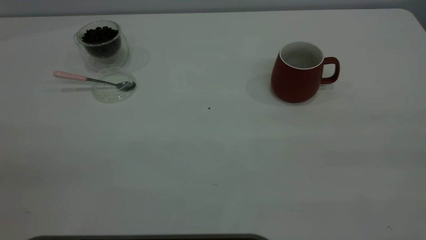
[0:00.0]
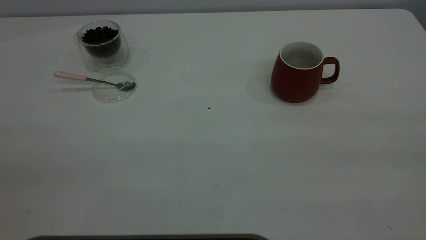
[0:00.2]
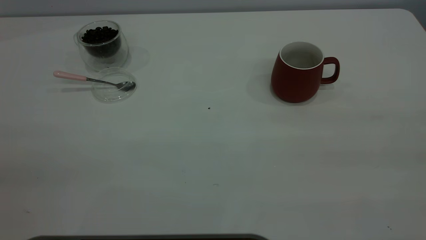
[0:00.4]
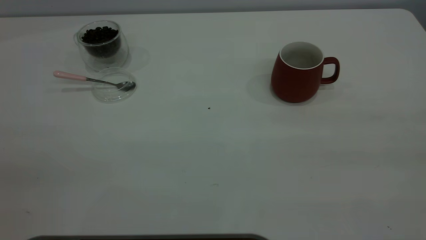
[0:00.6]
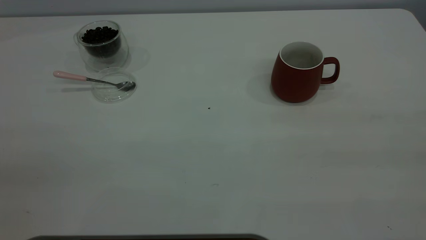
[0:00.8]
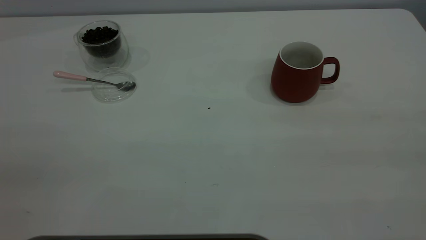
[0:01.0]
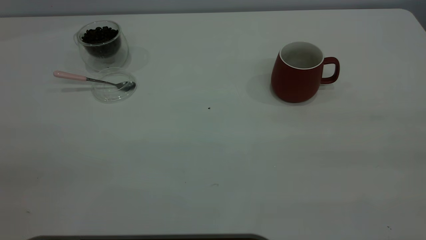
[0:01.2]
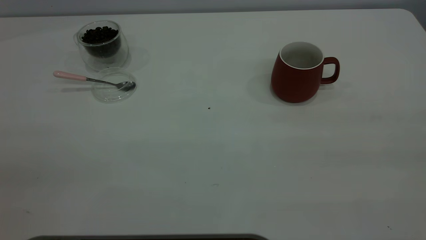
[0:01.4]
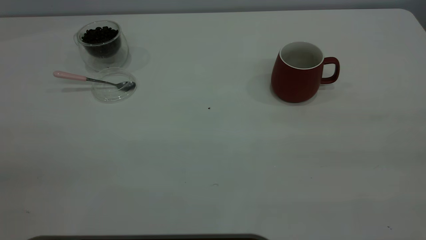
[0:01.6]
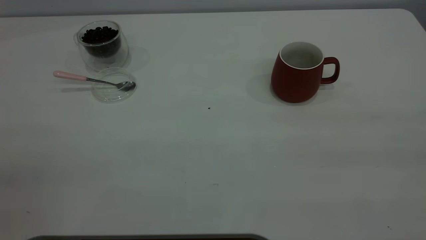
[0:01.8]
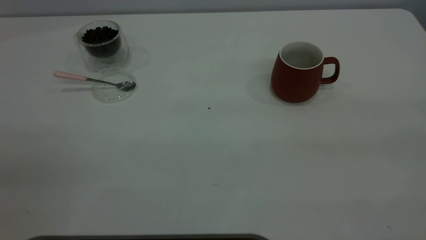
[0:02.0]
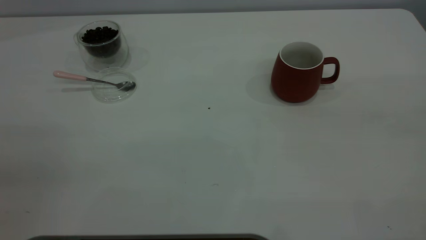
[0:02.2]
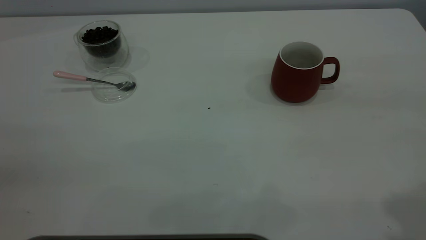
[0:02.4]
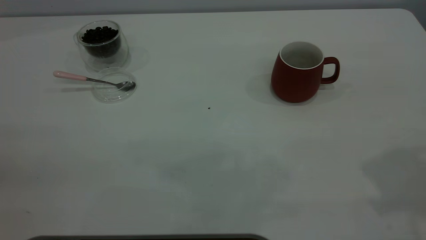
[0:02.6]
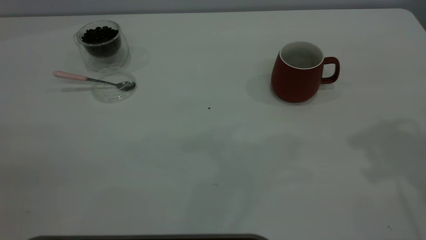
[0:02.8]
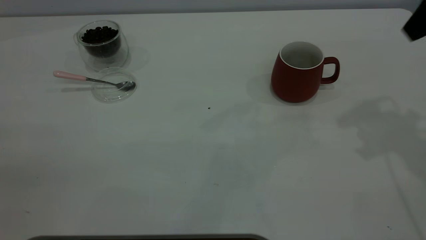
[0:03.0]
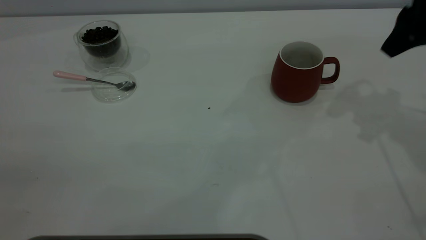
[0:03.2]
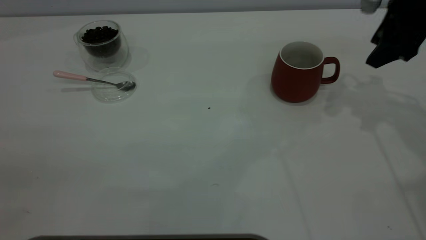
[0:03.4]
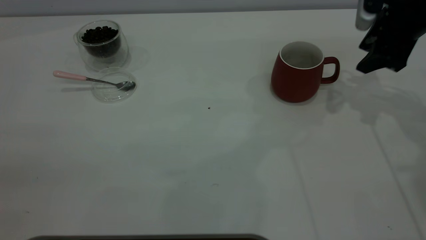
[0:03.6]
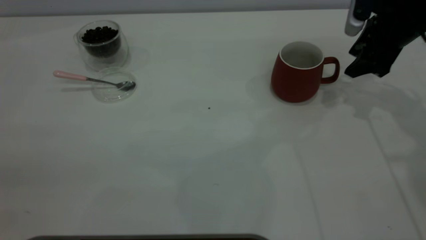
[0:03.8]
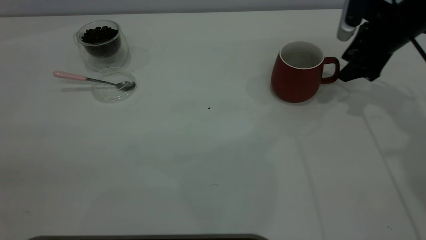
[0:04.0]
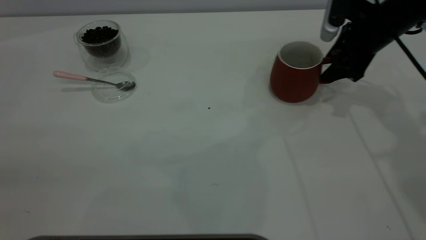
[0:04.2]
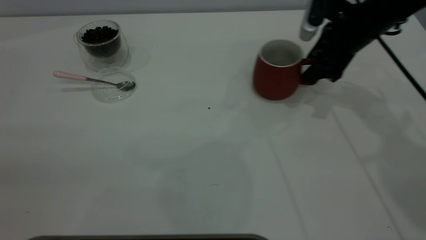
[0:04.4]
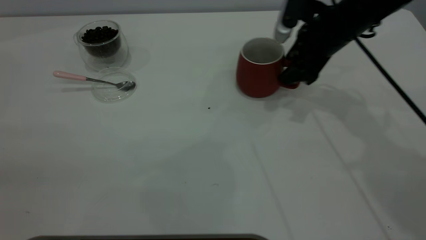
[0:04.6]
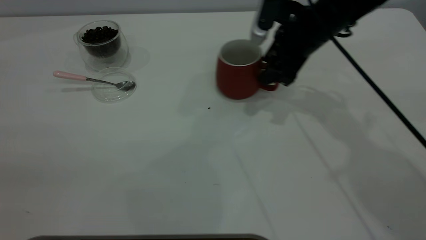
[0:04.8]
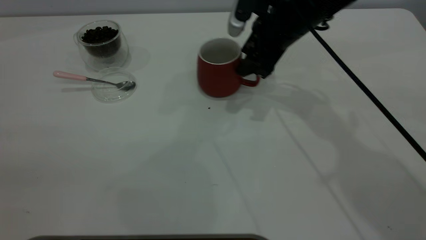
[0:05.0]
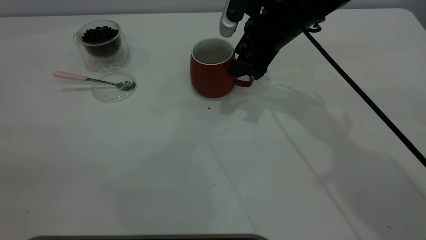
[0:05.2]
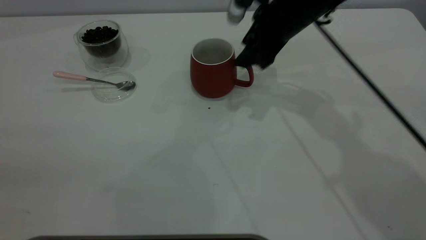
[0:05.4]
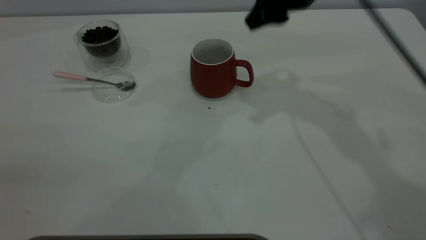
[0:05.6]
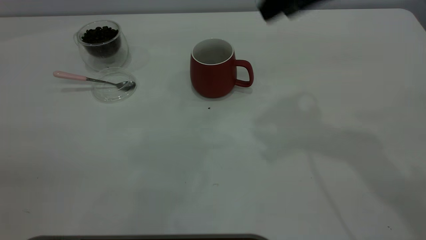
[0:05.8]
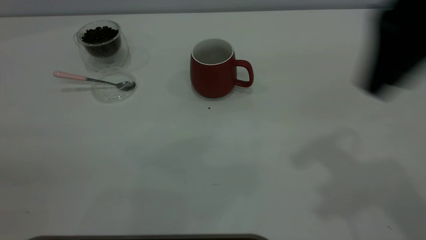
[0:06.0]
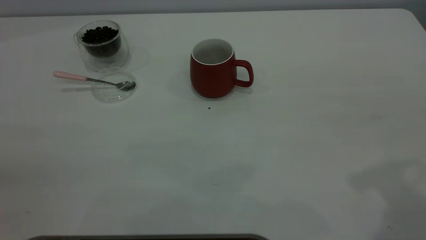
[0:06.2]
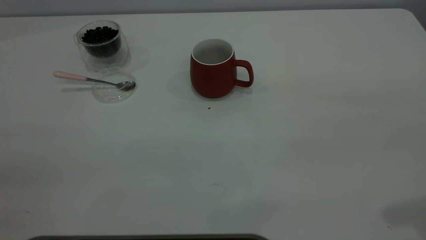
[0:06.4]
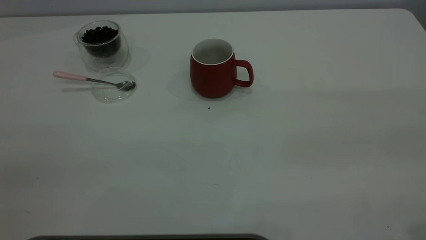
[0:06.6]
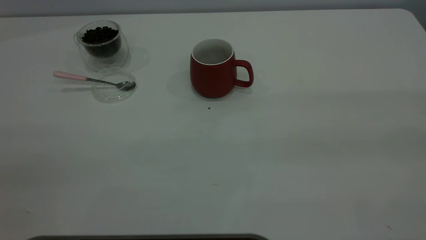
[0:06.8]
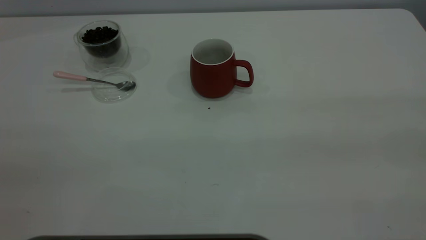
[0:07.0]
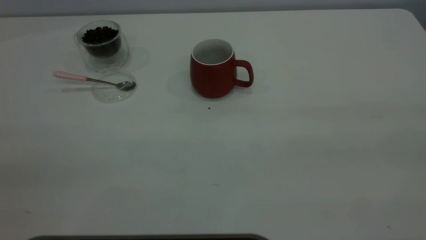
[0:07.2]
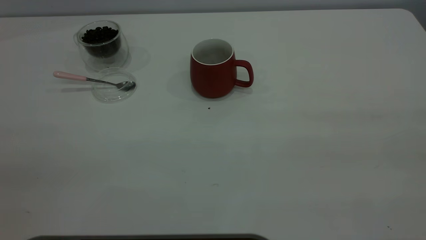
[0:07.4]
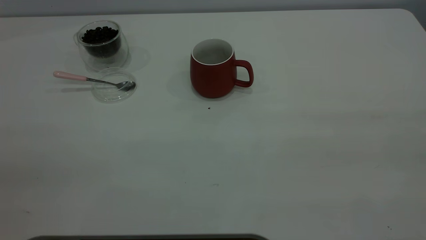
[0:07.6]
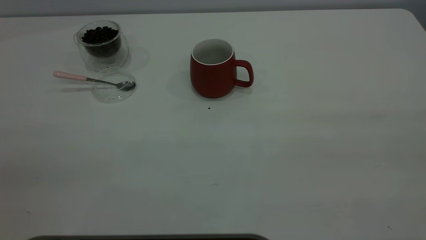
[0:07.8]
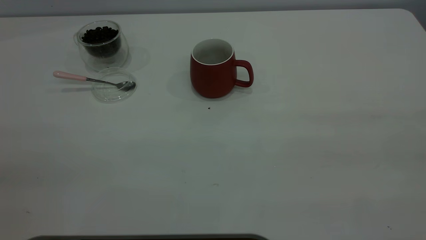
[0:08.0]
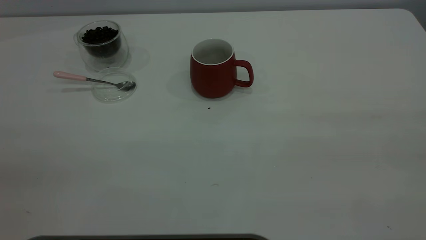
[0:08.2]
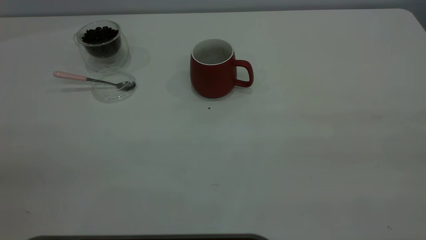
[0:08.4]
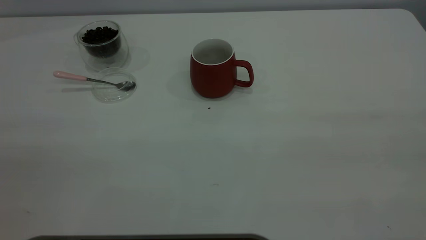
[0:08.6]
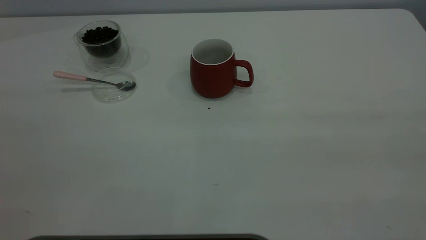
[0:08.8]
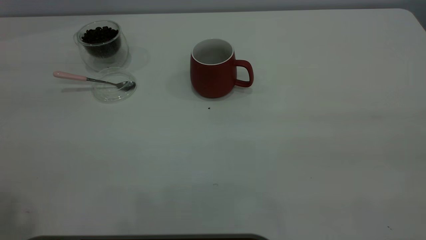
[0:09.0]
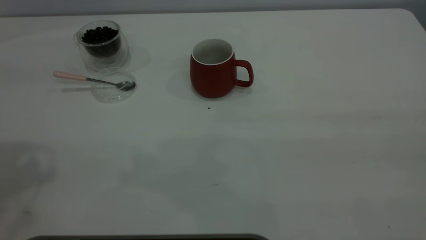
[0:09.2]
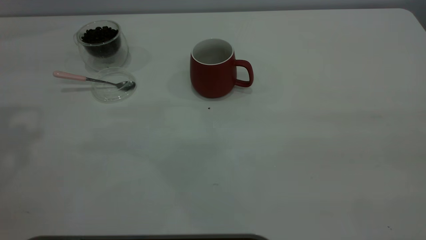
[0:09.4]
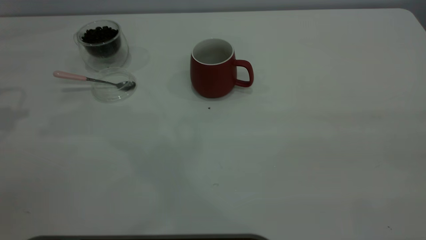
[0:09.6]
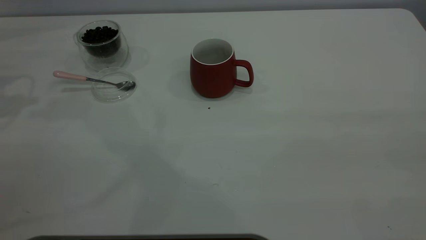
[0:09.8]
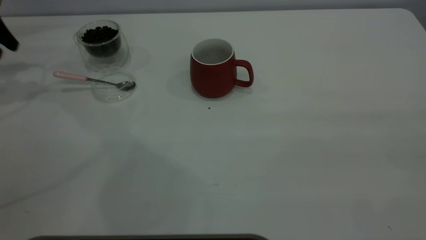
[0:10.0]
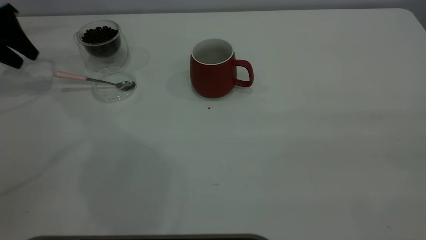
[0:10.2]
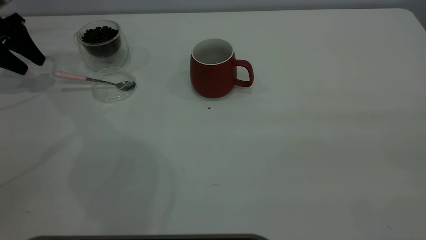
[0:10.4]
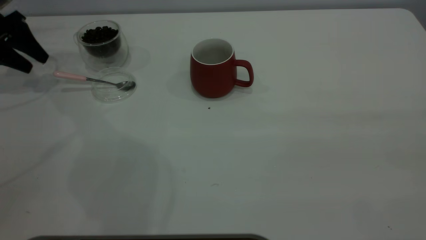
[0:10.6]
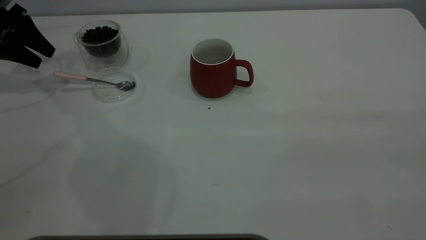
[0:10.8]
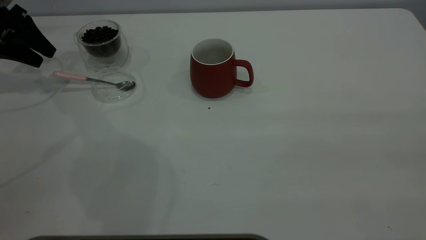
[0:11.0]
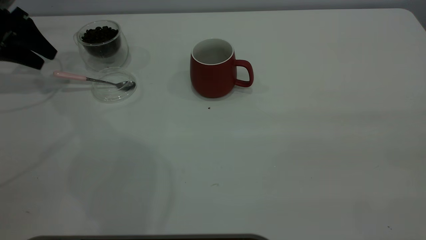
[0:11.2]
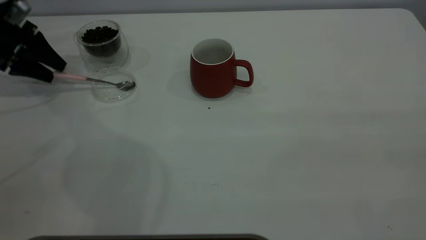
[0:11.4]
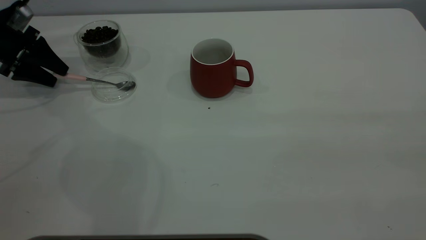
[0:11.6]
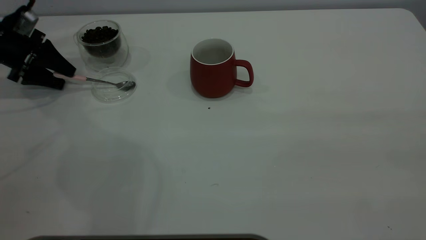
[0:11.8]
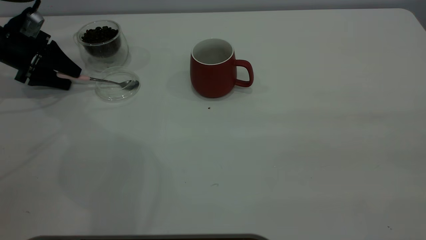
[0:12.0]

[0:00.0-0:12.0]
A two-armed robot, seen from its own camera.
Task of the whole recording: the right gripper place the red cup in the center of the table, the left gripper take the pink spoon from the cup lid and scoop out the coffee beans from the coffee cup and put them into the red cup, the left gripper put the spoon back into the cup lid.
Step, 0:00.0 to 0:05.4: Move the cup to the center of view.
0:00.0 to 0:01.6: Both grippers stay about where they are.
0:03.0 to 0:04.4: The right gripper heads downward, forward and to the left, covering some 20 cm.
0:04.4 to 0:06.0: The right gripper moves backward and upward, some 25 cm.
0:06.0 to 0:07.6: The right gripper shifts some 25 cm backward and to the right.
0:09.0 to 0:10.4: The left gripper is displaced forward, downward and to the left by some 40 cm.
0:10.4 to 0:12.0: The left gripper moves downward, some 5 cm.

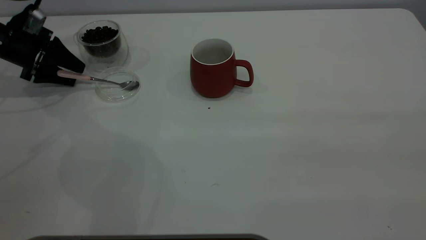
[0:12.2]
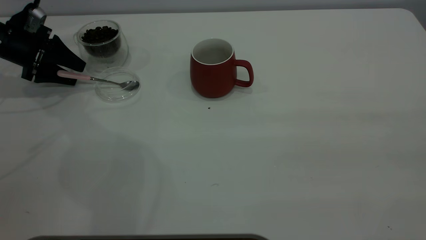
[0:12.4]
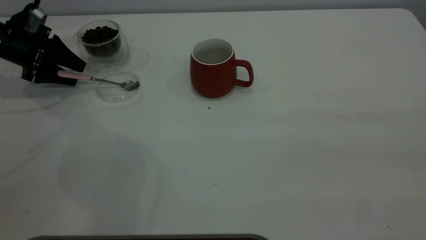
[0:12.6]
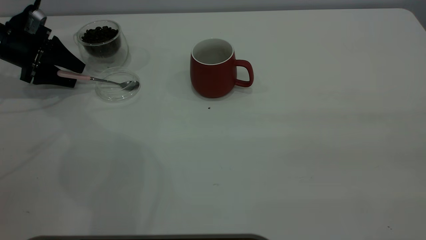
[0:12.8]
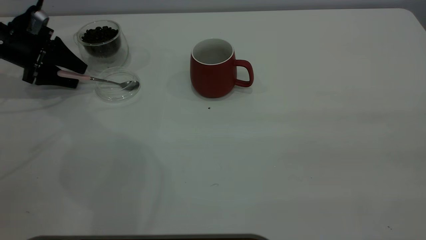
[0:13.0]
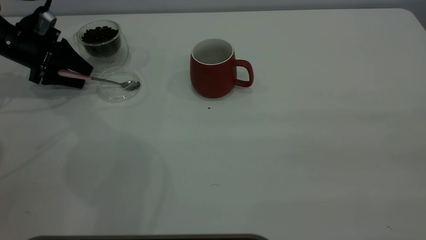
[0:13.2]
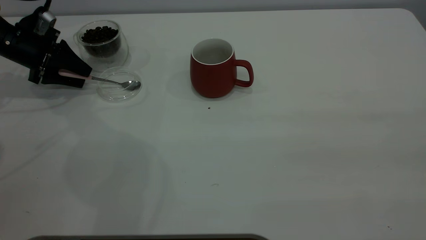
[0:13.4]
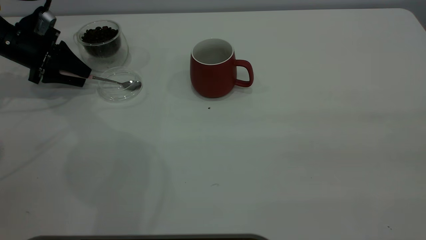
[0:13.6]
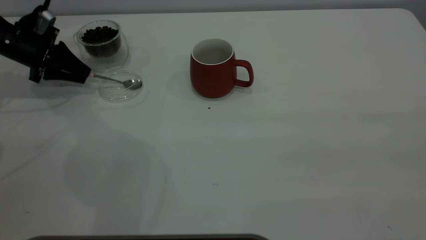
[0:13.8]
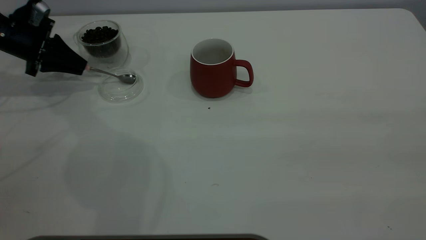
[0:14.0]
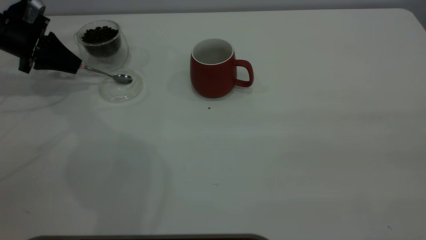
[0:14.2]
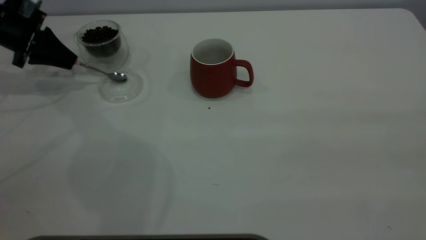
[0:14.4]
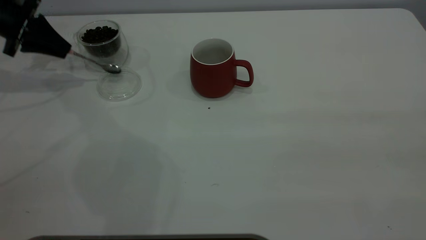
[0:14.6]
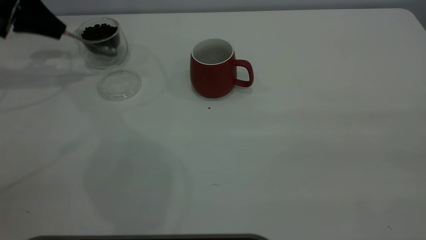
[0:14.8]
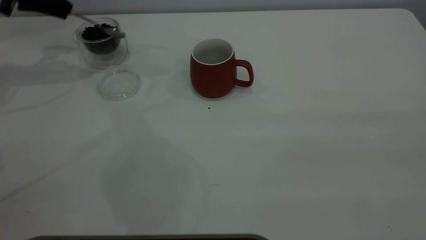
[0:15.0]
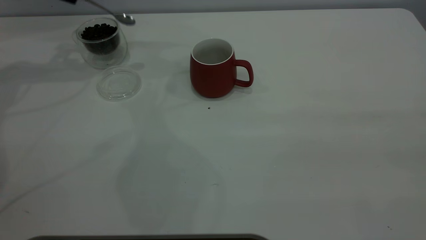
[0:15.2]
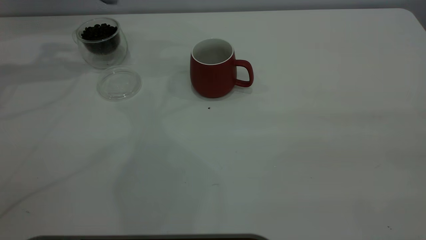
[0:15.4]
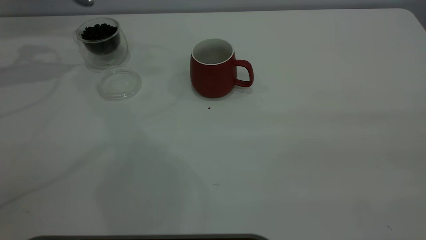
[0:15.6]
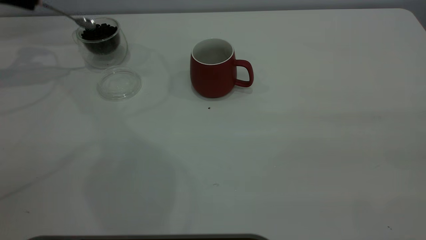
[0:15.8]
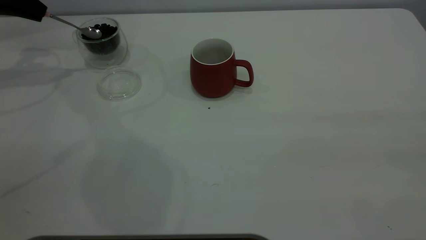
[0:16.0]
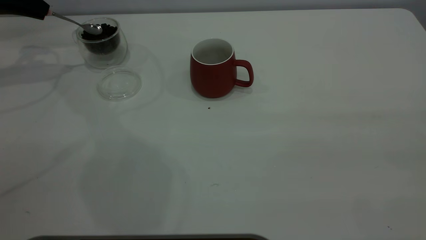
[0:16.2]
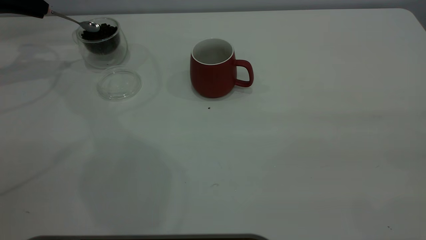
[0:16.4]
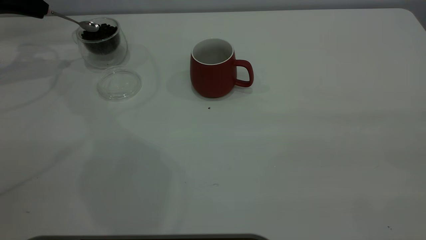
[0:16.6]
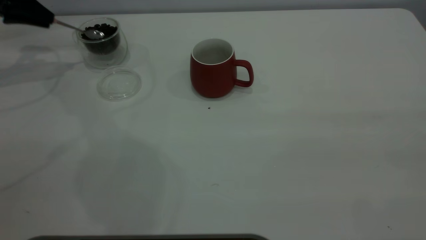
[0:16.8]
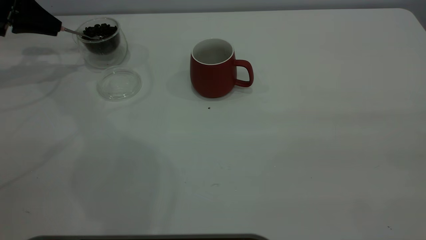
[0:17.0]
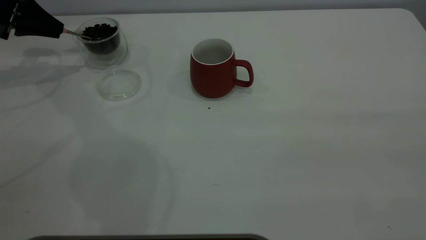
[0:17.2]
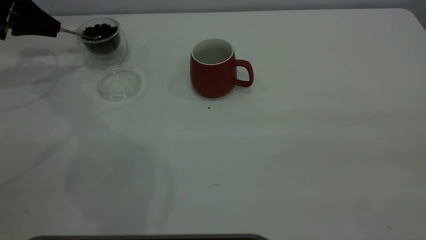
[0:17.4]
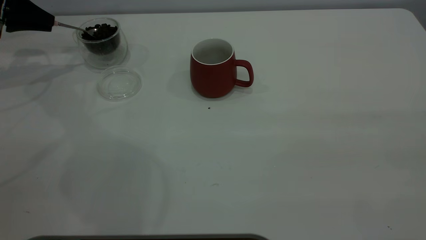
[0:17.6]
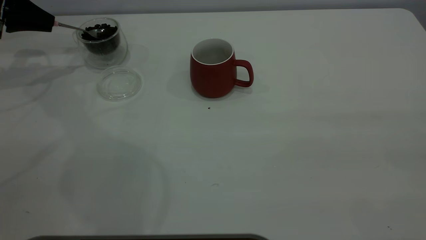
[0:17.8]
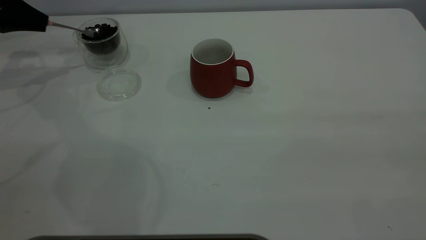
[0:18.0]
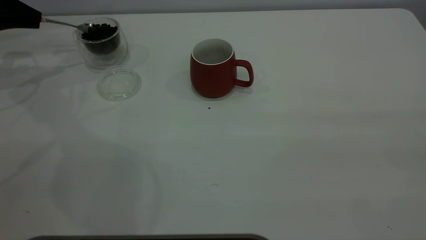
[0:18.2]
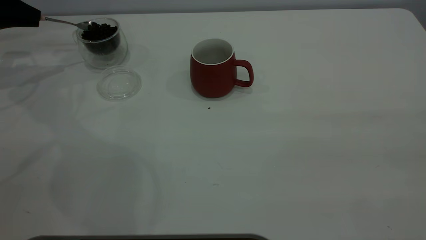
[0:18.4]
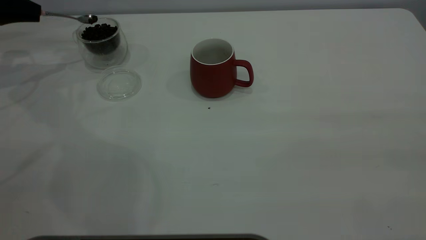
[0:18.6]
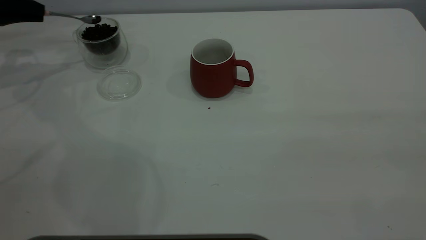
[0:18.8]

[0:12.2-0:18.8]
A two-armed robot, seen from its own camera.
Task of the whole recording: the right gripper place the red cup in the center of the table, the left gripper take the pink spoon from the cup lid and scoop out the coffee beans from the coffee cup and put them into the red cup, the left gripper put the spoon back into the cup lid.
Step, 0:12.2 to 0:14.8: Pick up the spoon.
0:12.2 to 0:13.8: The left gripper closes.
0:13.8 to 0:15.4: The left gripper shifts some 20 cm upward.
0:15.4 to 0:17.2: The left gripper goes some 10 cm downward.
0:17.2 to 0:18.8: The grippers stay close to where they were, moving slightly.
